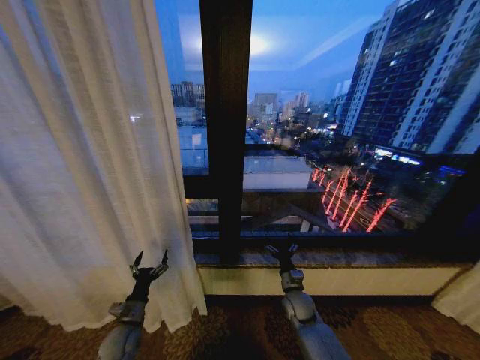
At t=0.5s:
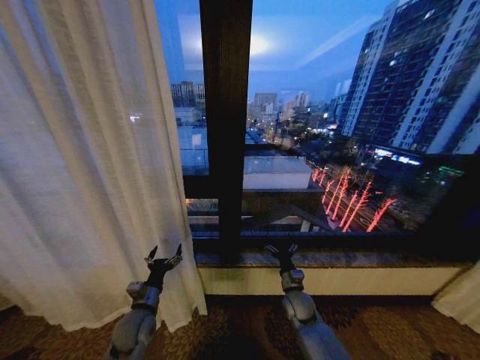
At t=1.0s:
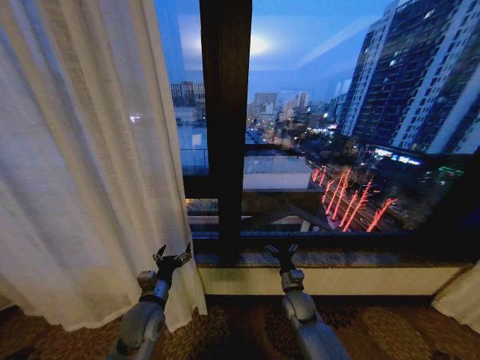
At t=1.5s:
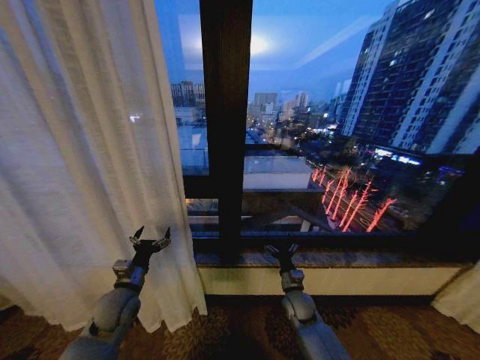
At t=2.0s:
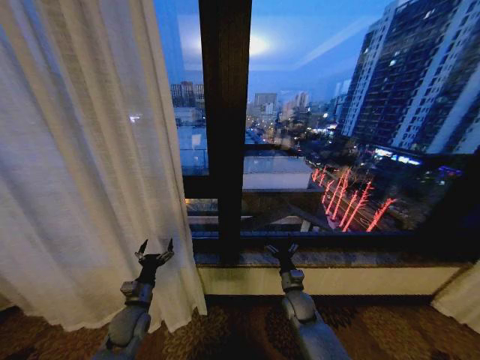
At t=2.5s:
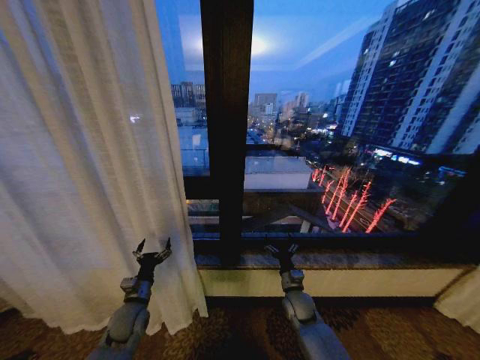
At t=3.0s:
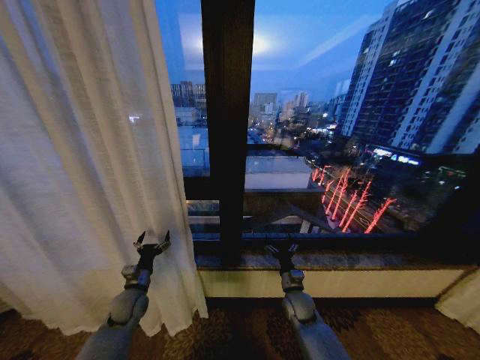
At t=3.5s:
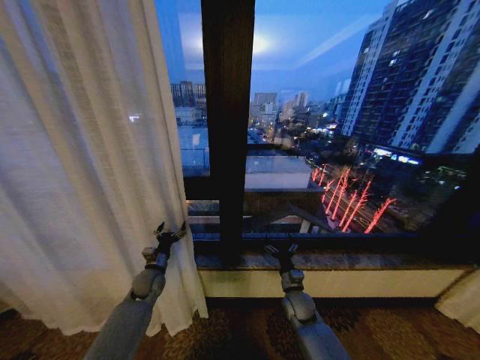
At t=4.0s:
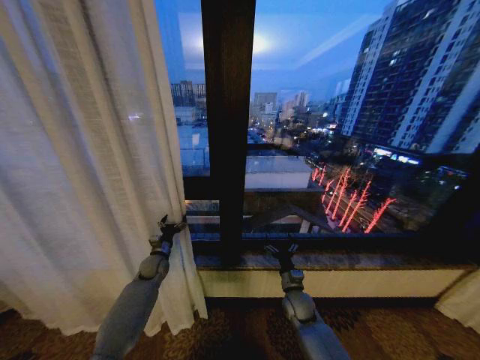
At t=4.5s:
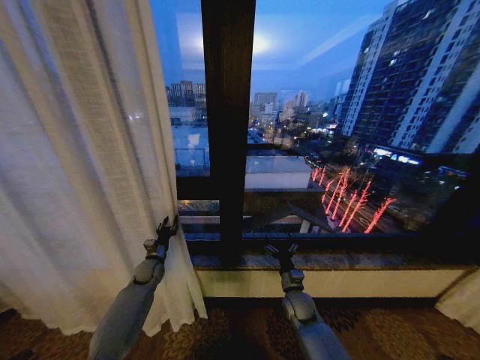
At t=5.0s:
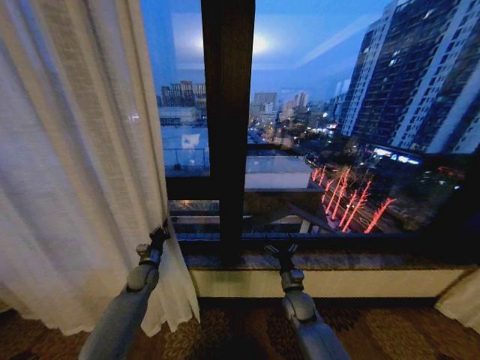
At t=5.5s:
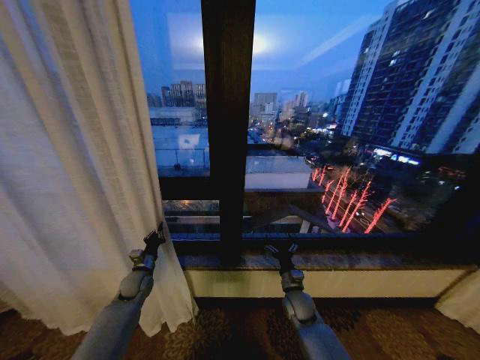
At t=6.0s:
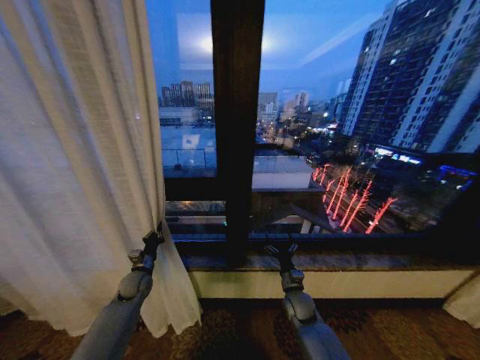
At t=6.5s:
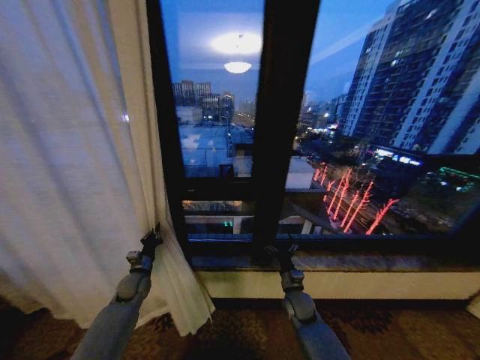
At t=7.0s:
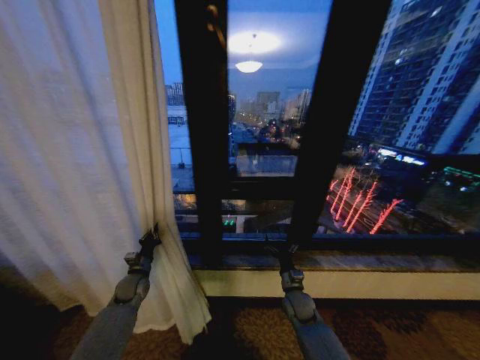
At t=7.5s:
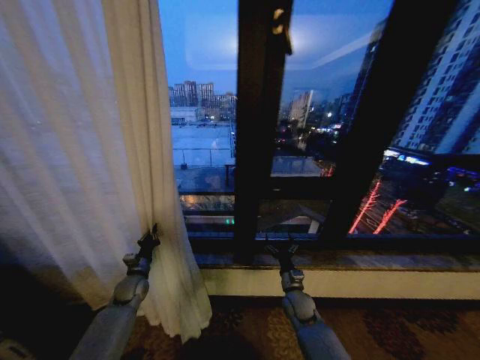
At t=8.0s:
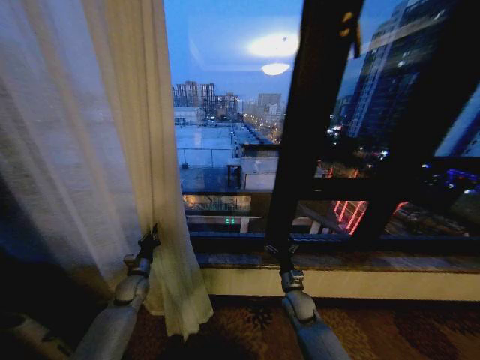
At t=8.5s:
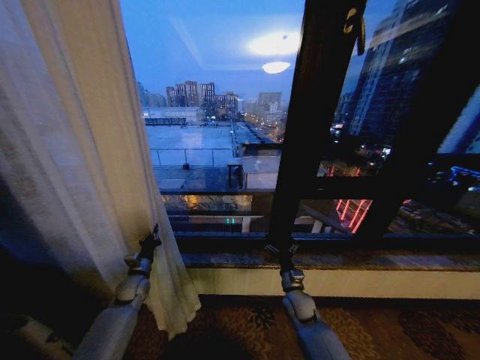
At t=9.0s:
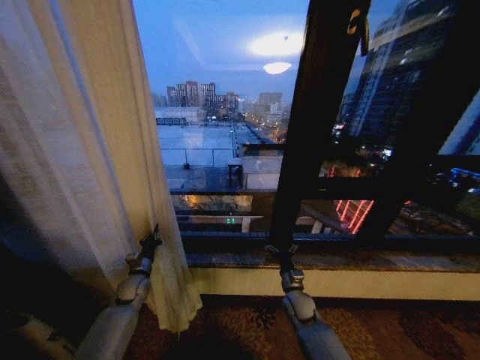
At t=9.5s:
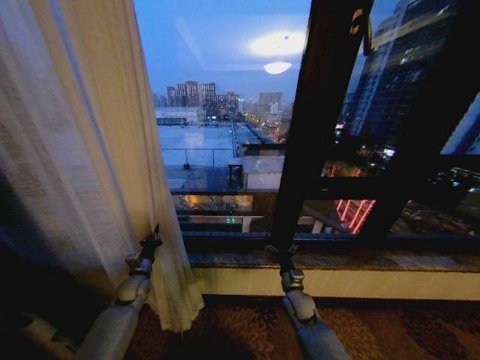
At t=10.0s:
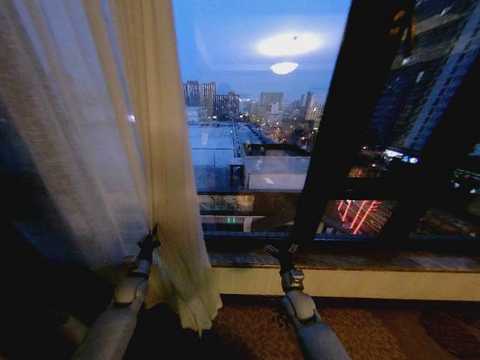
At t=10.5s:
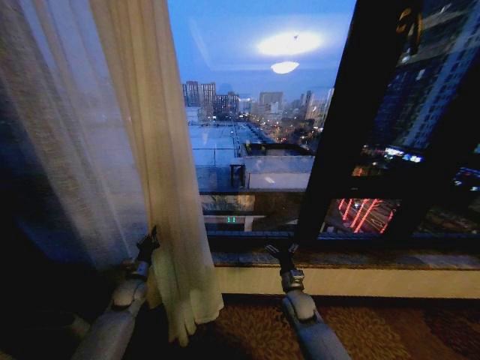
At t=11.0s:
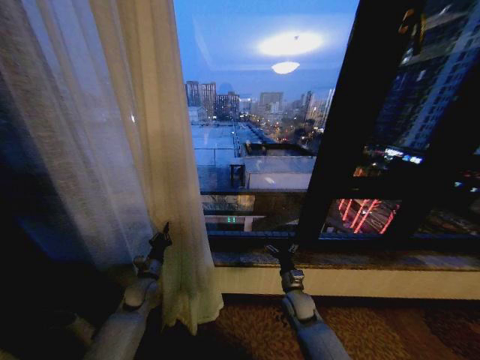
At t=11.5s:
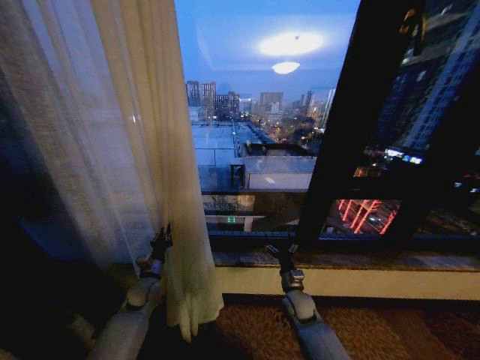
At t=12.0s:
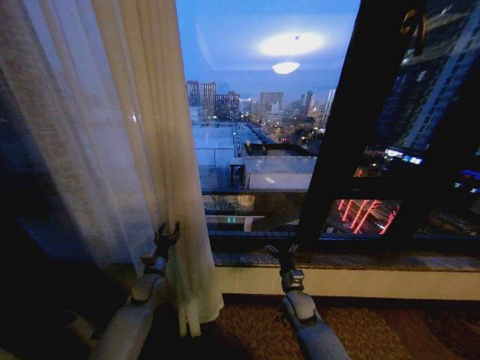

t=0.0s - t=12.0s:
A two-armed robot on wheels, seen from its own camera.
Task of the whole recording: Open the curtains by pulling them apart, changing their state from closed to fully open.
t=2.0s - t=4.0s: The left gripper travels forward by approximately 15 cm.
t=4.0s - t=6.0s: The left gripper shifts roughly 5 cm backward, and closes up.
t=10.0s - t=12.0s: The left gripper goes approximately 5 cm to the right, and opens its fingers.

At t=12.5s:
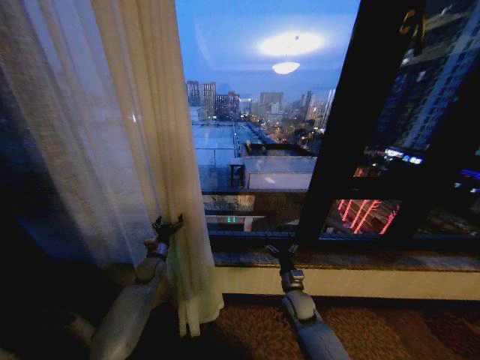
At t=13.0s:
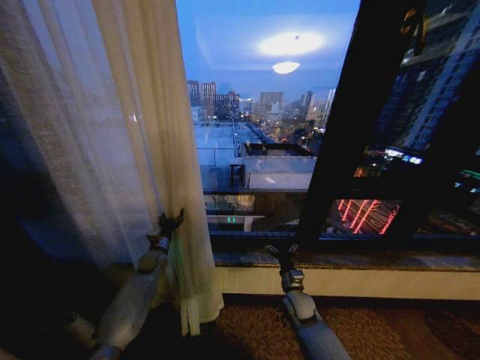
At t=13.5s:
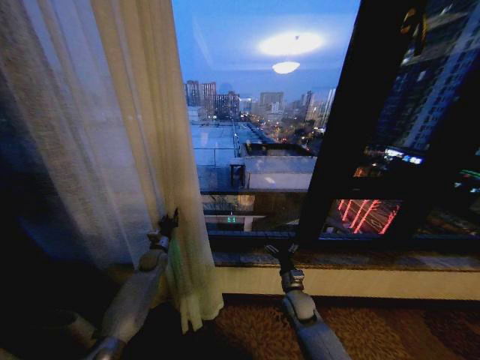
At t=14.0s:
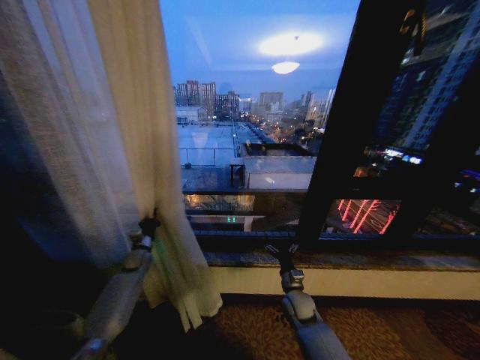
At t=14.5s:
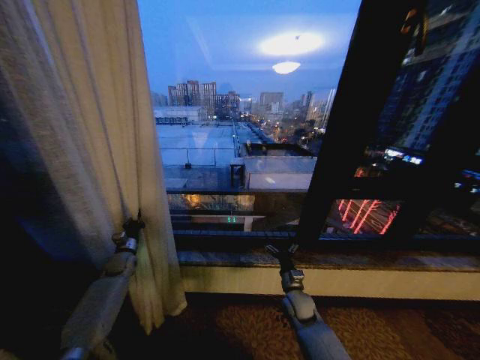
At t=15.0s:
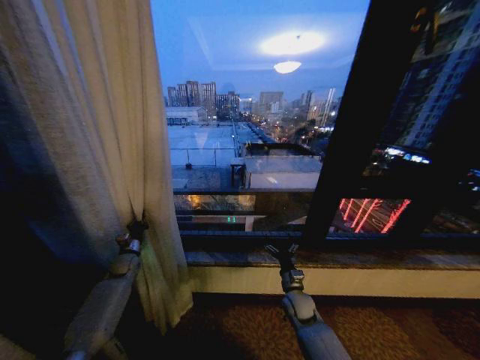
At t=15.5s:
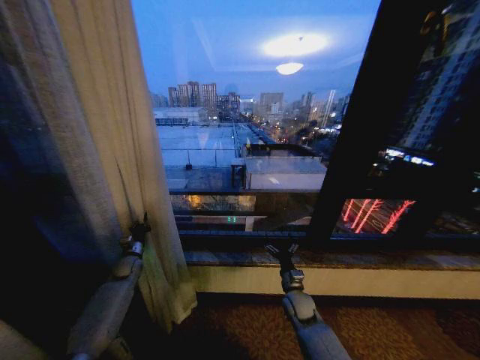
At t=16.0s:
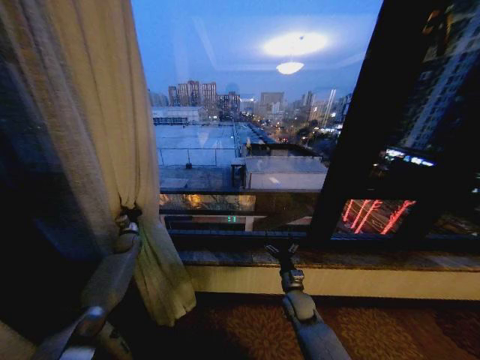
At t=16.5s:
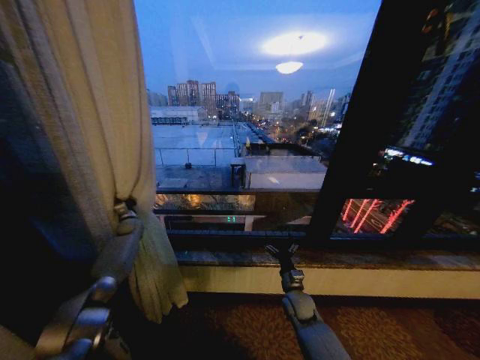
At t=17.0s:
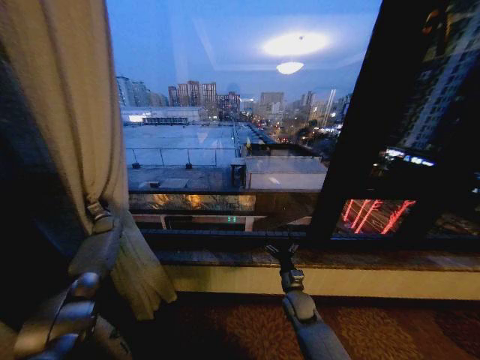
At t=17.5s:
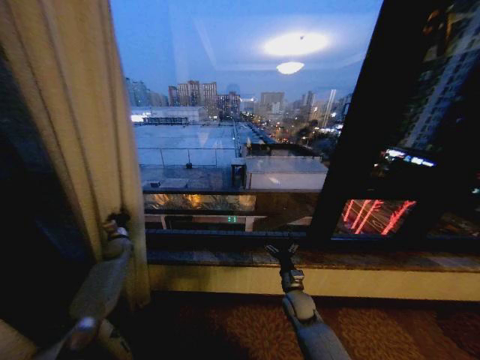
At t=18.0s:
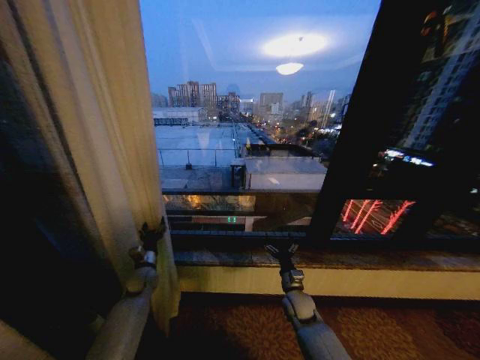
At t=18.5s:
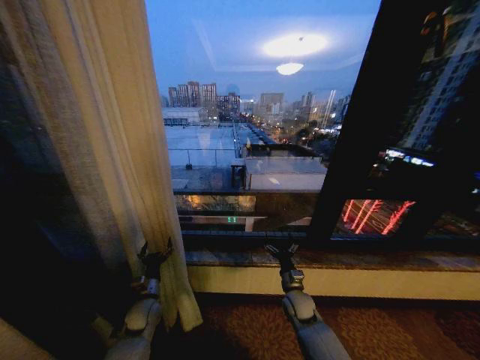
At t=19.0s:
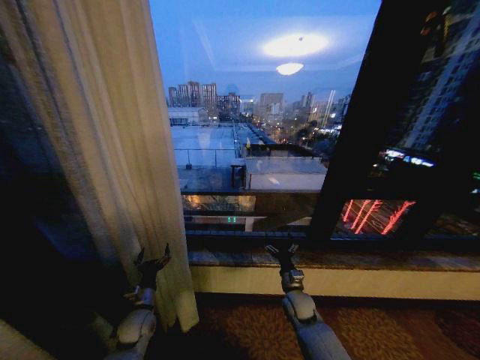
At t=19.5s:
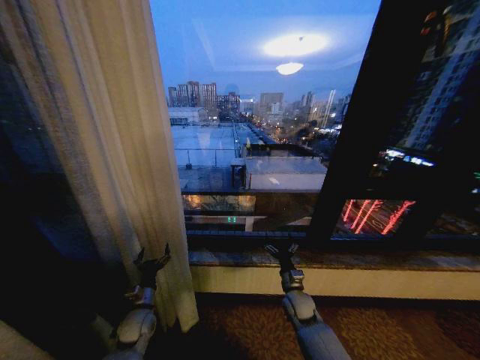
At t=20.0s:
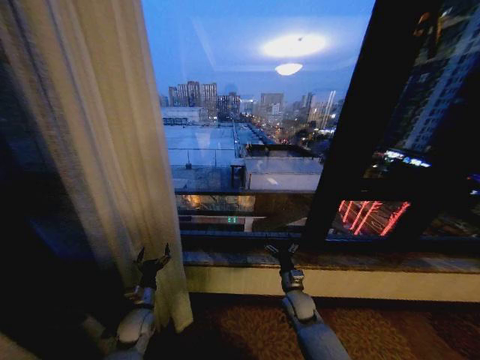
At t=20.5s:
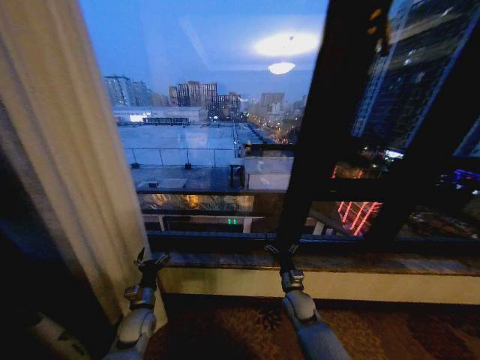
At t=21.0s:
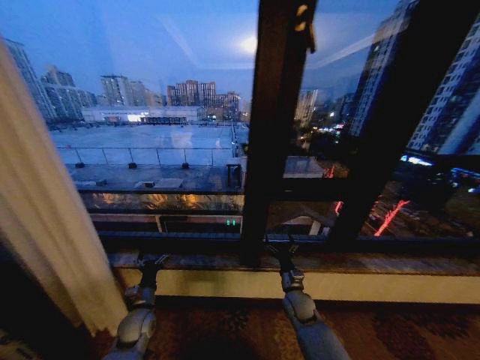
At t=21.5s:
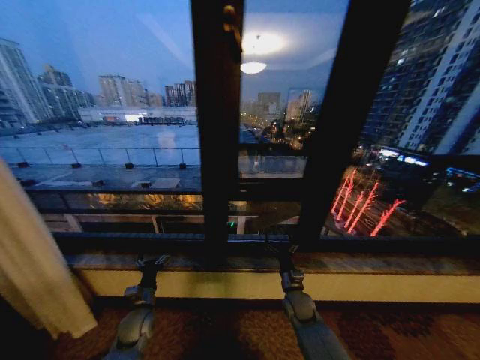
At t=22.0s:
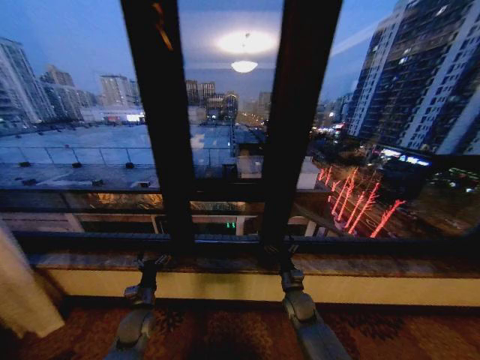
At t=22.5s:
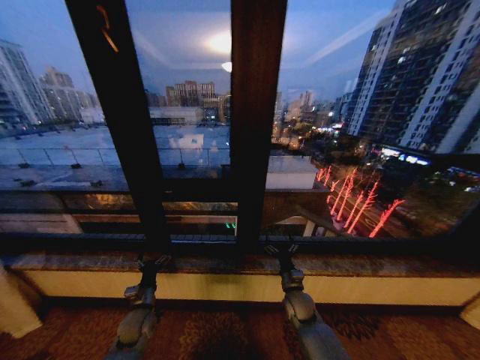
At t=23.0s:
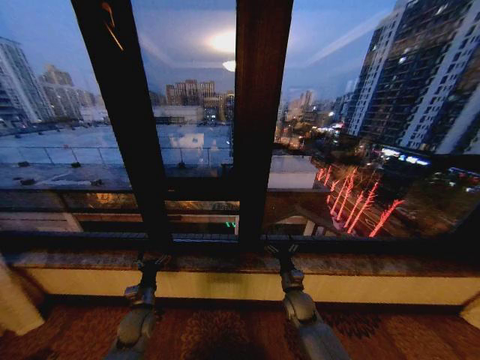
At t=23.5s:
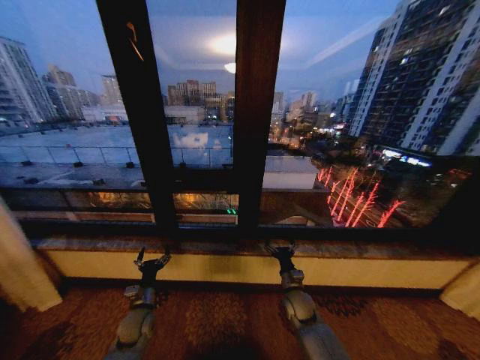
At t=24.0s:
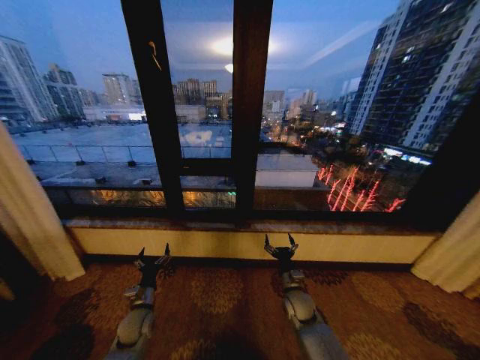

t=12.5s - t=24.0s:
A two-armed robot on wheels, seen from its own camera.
Task of the whole recording: Open the curtains by pulling them apart, changing their state from closed to fully open.
t=12.5s - t=14.5s: The left gripper shifts about 10 cm to the left, and closes its fingers.
t=14.5s - t=16.5s: The left gripper moves forward and upward, roughly 15 cm.
t=16.5s - t=18.5s: The left gripper heads backward, to the right and downward, covering roughly 30 cm, and opens up.
t=18.5s - t=20.0s: The grippers move only a little.
